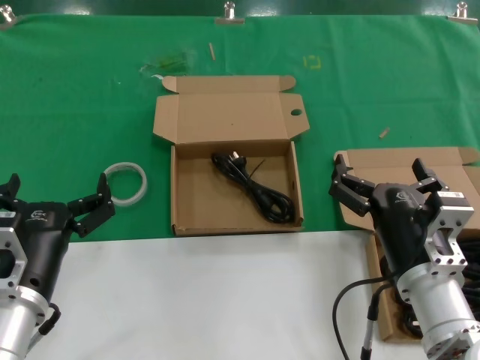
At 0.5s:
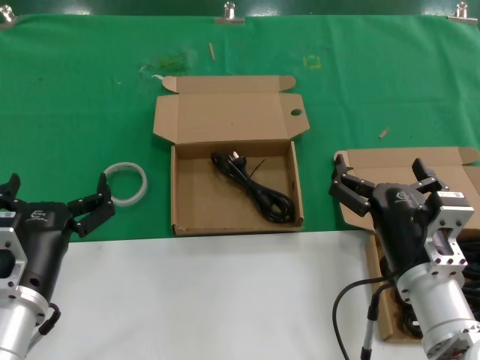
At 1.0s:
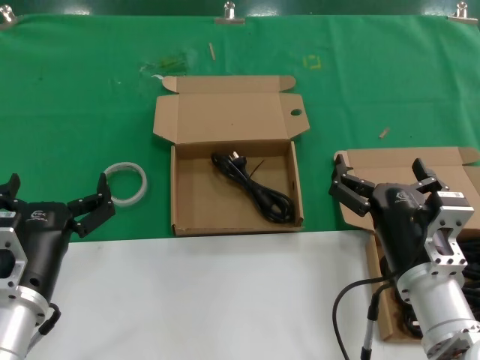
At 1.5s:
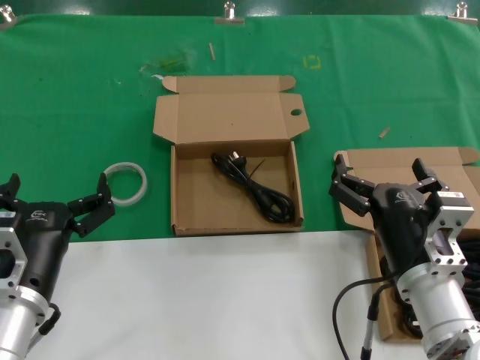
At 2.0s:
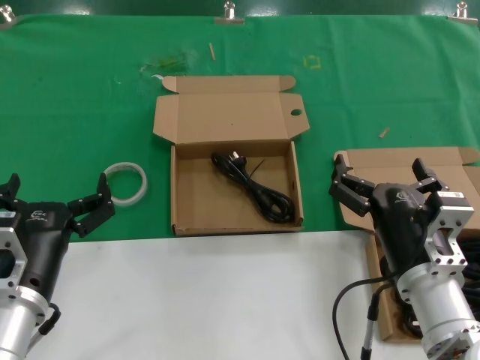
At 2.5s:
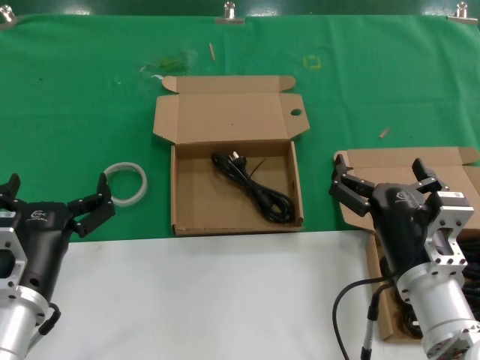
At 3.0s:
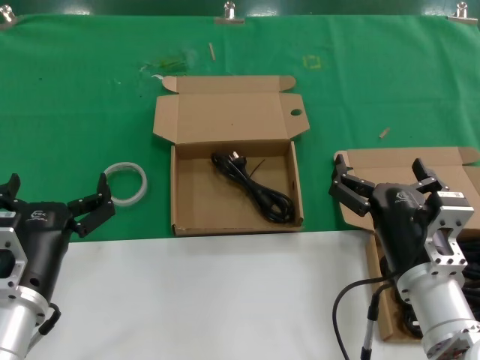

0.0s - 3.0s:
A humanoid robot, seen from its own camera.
Task of the whole recording: take the parts from the box containing them and put them into an empty box.
0.0s - 3.0s: The two hands keep their place.

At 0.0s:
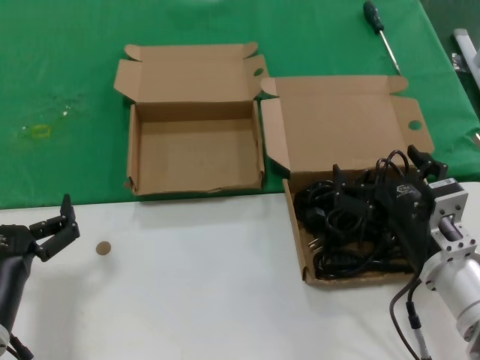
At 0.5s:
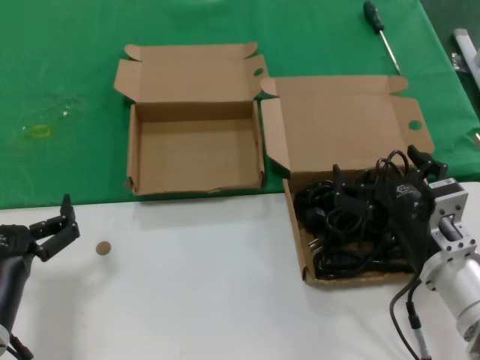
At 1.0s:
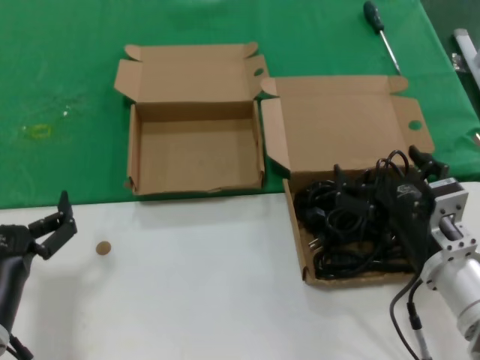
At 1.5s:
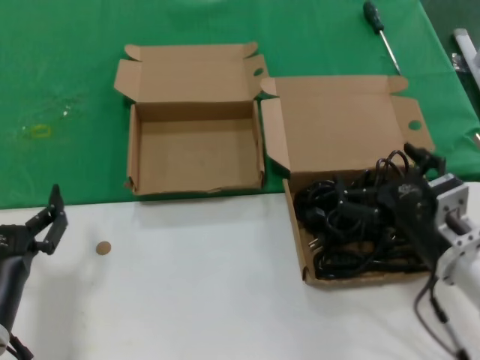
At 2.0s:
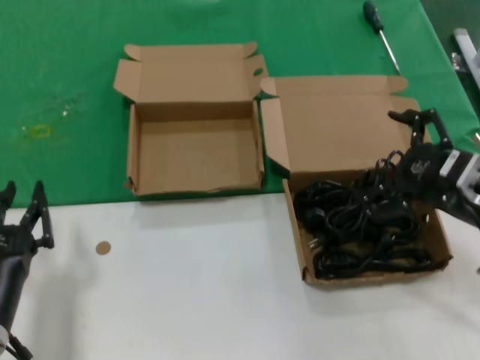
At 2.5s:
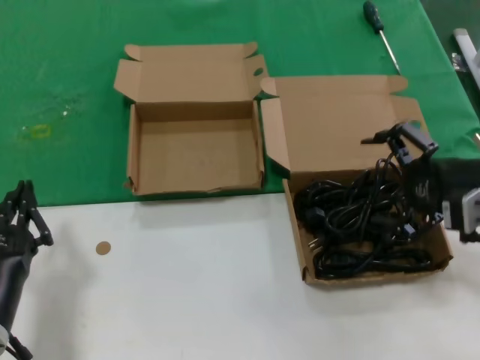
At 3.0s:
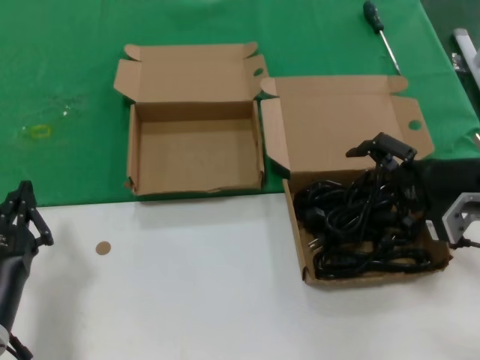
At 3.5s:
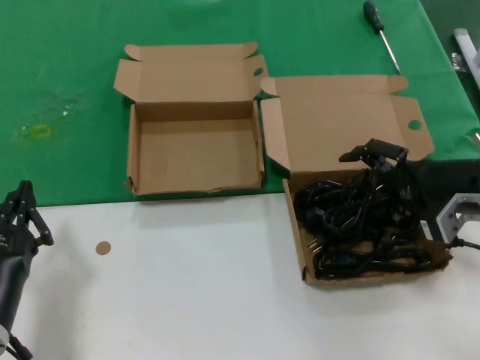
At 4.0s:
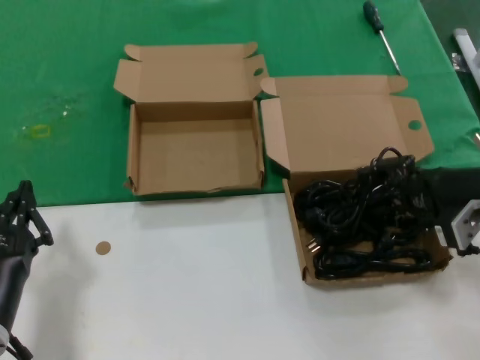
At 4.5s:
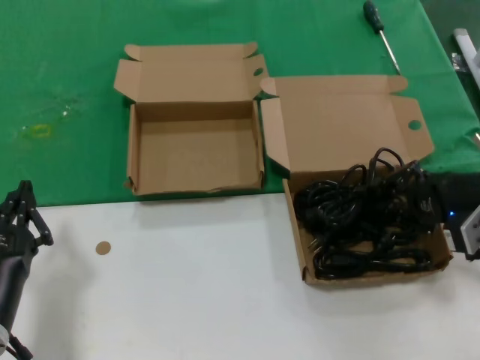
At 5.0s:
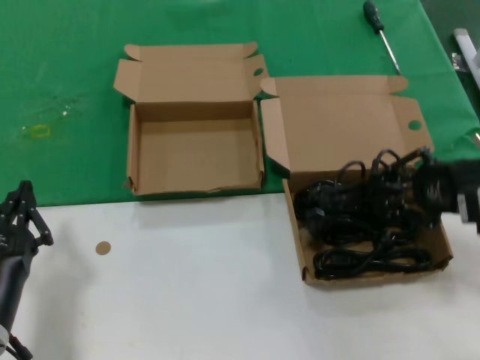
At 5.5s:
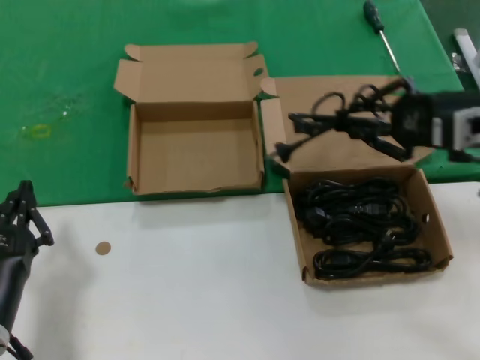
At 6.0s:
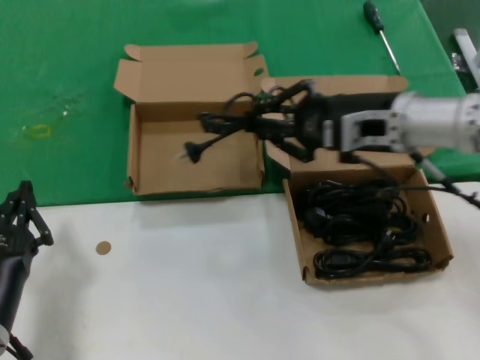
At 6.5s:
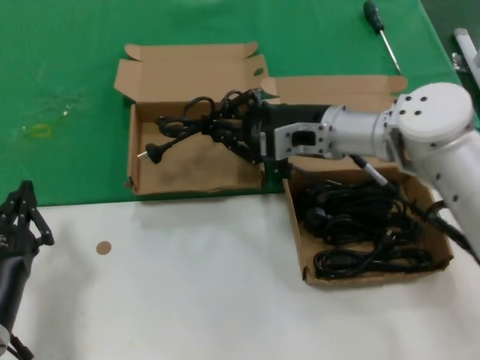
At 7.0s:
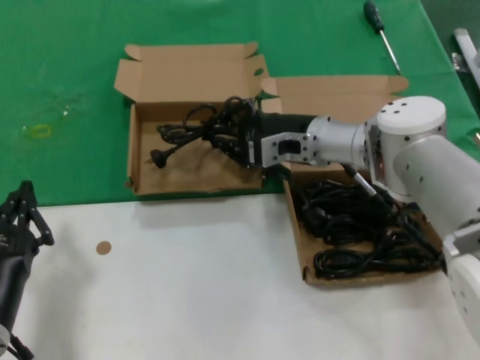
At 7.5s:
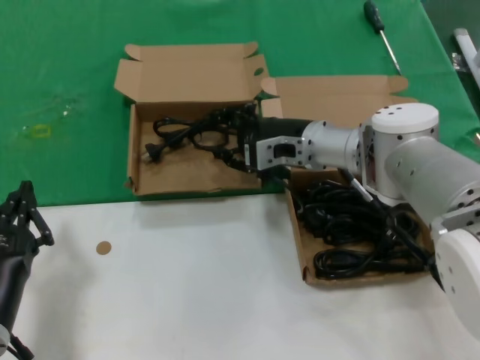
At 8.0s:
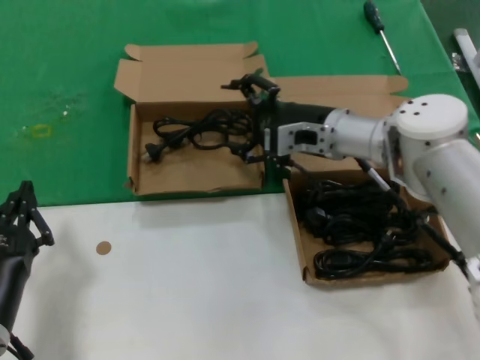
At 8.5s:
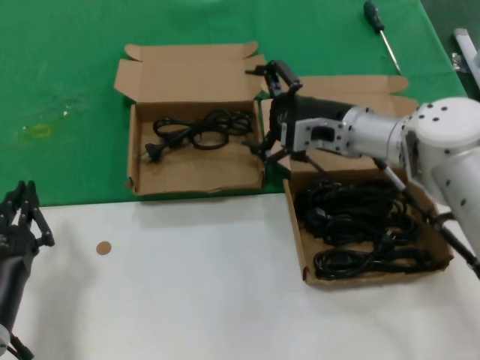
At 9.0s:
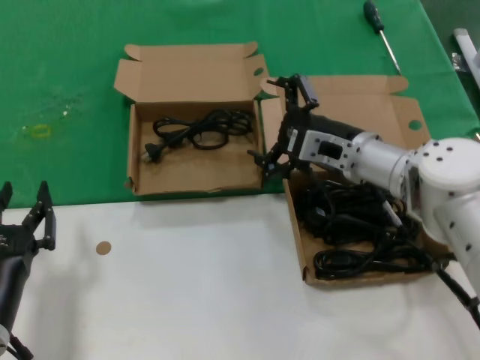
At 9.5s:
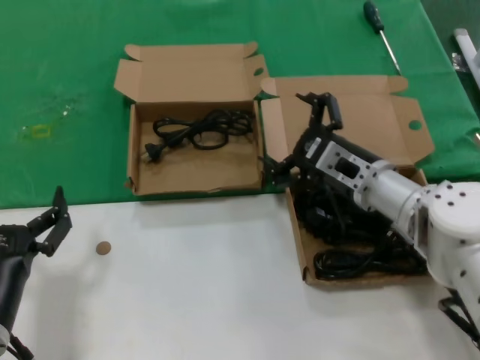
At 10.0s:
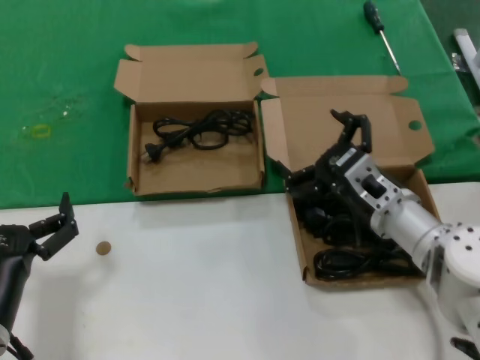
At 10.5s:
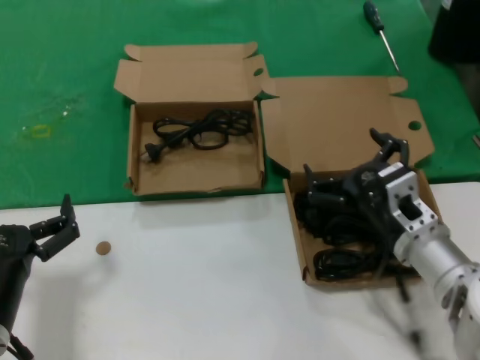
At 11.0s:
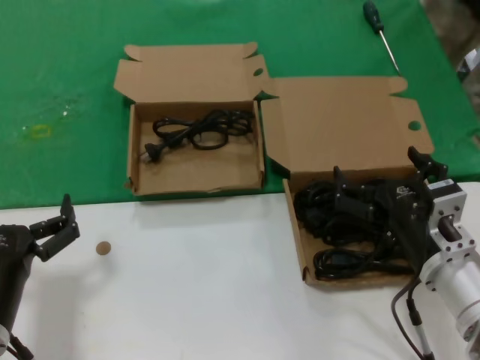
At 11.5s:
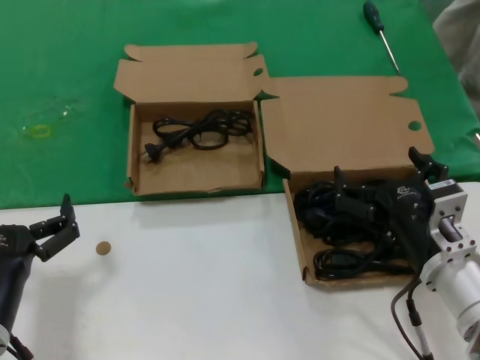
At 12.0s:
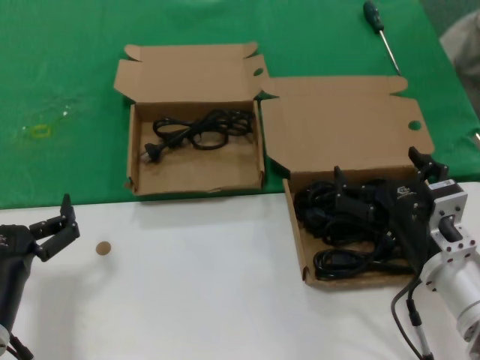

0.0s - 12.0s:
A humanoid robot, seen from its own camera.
Task of the whole recording: take the parts from the box containing them and put them into an empty box.
Step, 0.0s - 4.5s: Grasp the data cable.
Step, 5.0s - 7.5s: Place the data cable in the another box.
0.0s - 2.0s: The right hand shifts some 10 cm to the right and upward.
2.0s - 4.0s: The right hand shifts about 5 cm forward.
4.0s - 6.0s: The right hand is displaced to the left, upward and forward by about 15 cm.
6.0s - 8.0s: The right hand travels forward, downward and to the left by some 10 cm.
8.0s - 10.0s: The right hand goes some 15 cm backward and downward.
10.0s - 12.0s: The right hand moves backward, some 10 cm.

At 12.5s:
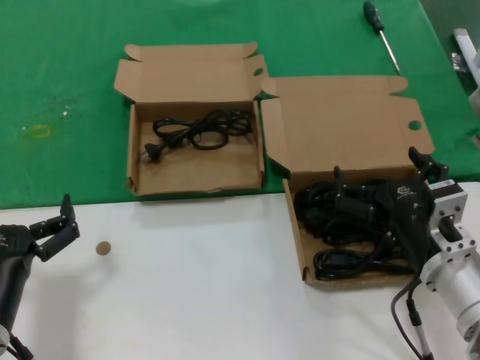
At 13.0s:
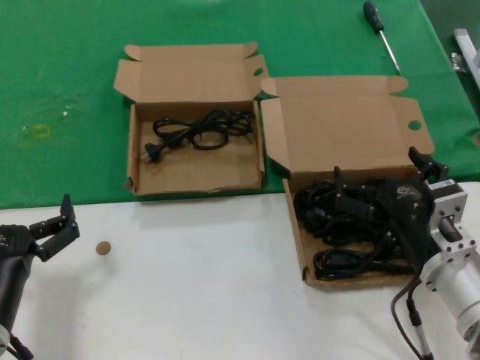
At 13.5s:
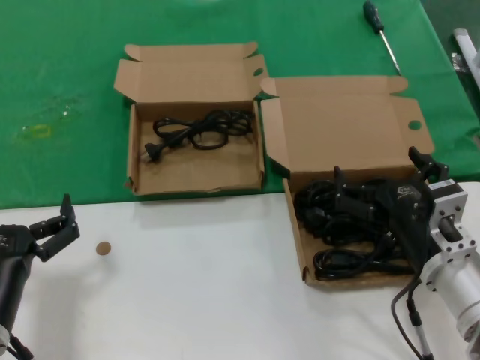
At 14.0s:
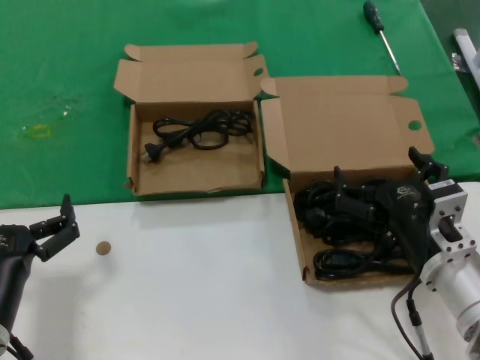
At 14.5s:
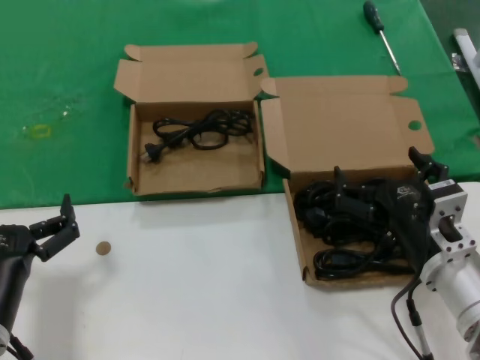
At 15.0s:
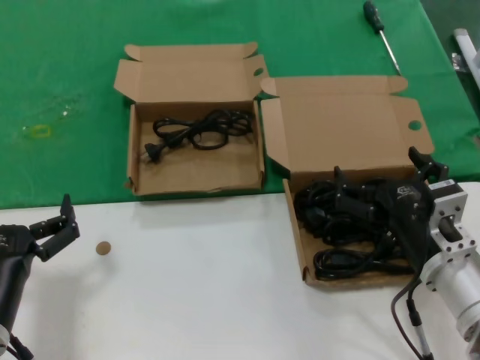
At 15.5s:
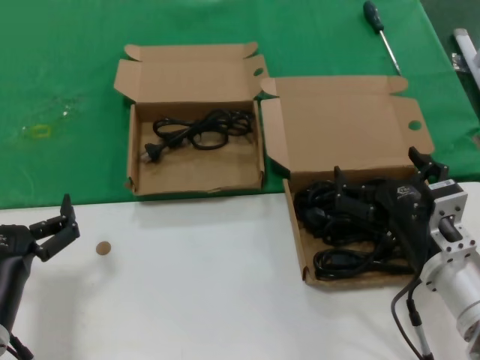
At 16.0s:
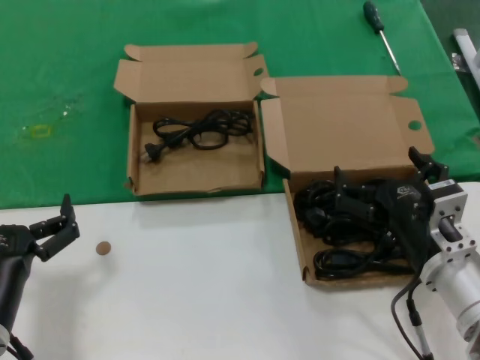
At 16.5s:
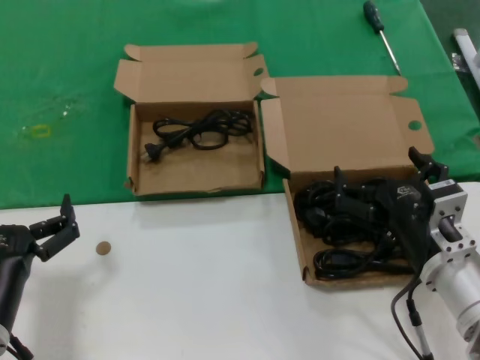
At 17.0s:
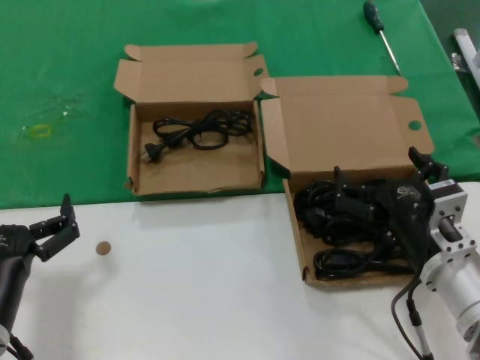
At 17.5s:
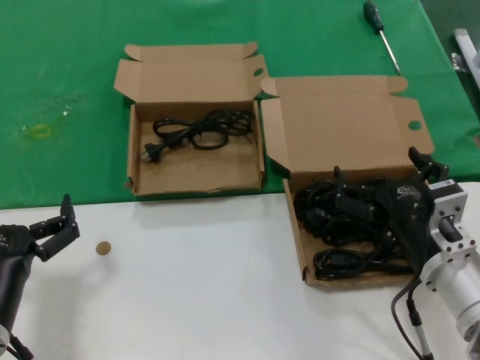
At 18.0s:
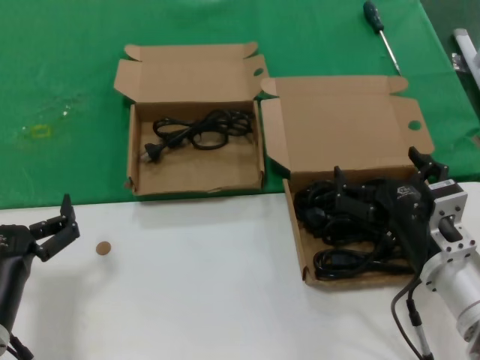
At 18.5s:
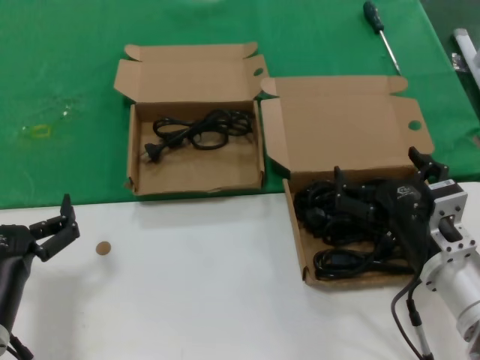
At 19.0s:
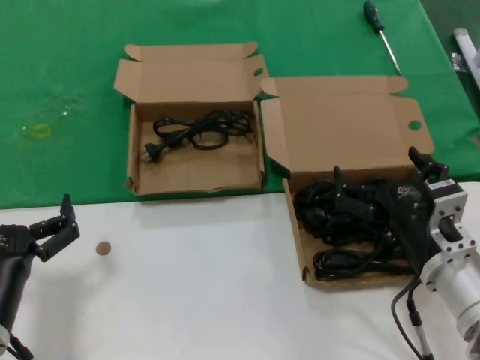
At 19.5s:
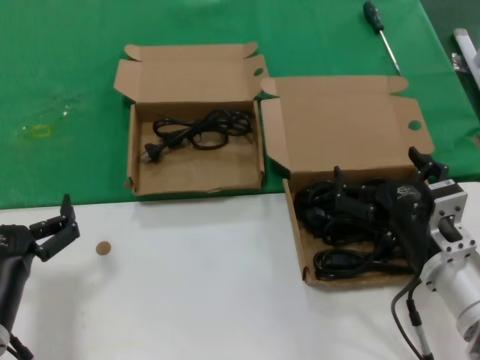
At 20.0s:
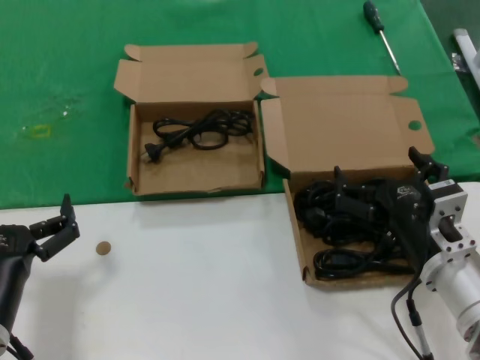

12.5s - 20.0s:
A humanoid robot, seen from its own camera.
Task of the whole recording: take the parts from the box containing them and put them into an empty box.
12.5s - 20.0s: Both hands stay put.

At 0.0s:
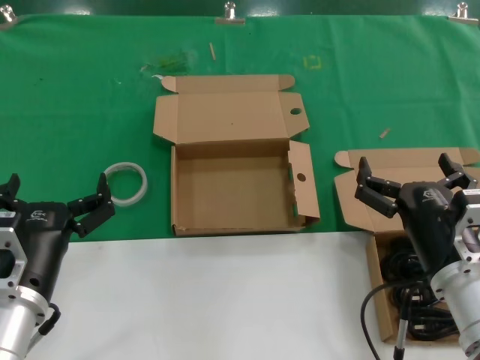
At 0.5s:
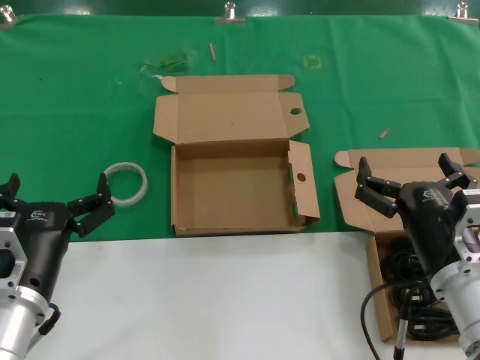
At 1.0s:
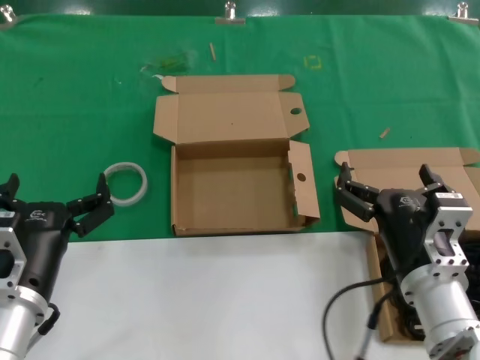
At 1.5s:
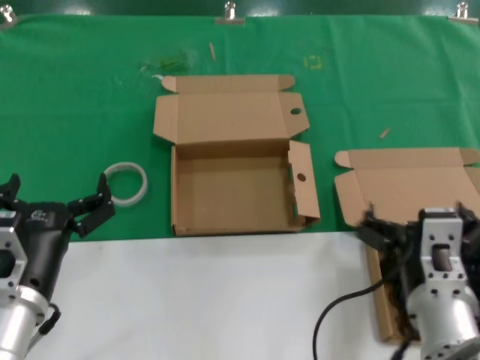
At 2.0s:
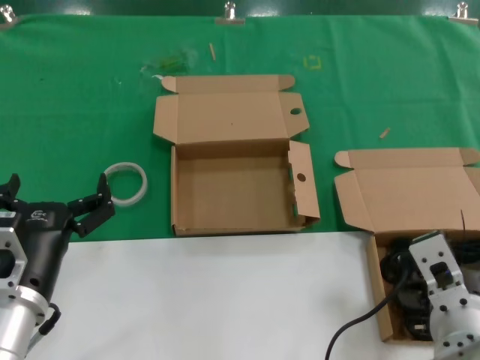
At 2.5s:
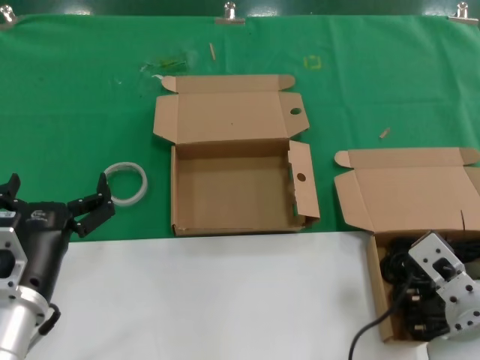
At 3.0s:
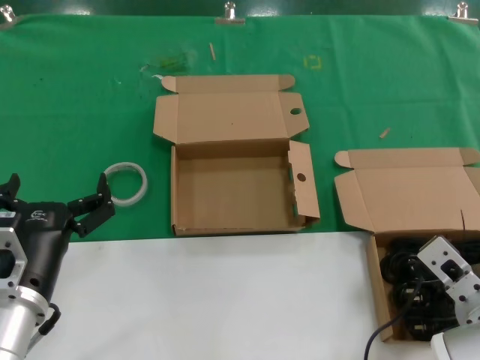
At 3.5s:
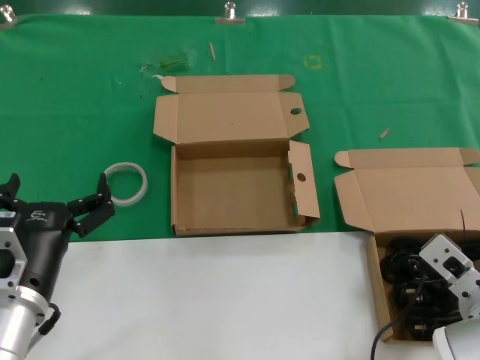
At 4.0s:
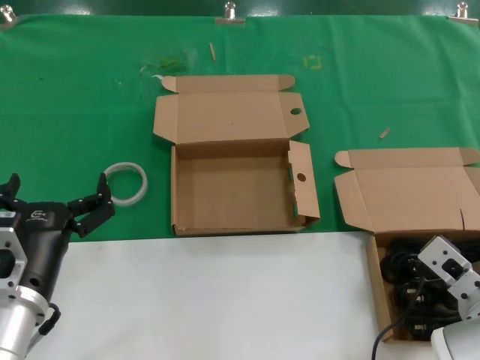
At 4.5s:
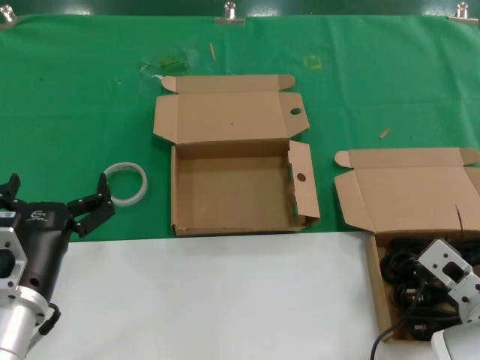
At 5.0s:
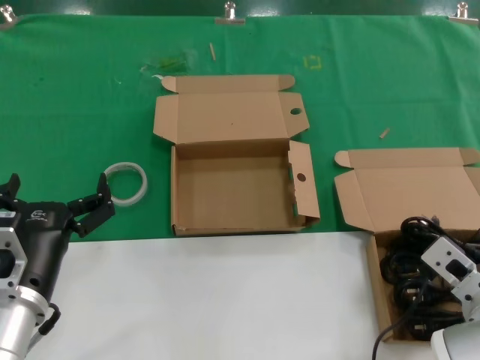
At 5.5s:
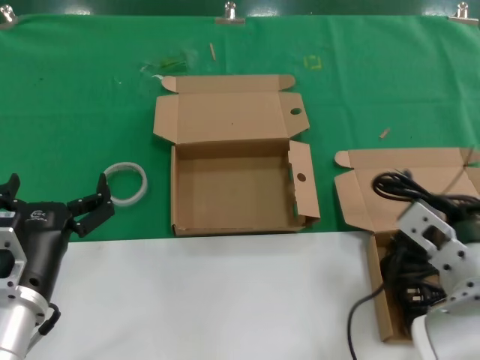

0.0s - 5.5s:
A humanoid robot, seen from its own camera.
Task of the whole recording: take the parts from the box containing them and put them into an empty box.
Step, 0.0s - 4.5s: Grasp the data cable.
0.0s - 2.0s: The right hand shifts some 5 cm to the left.
2.0s - 3.5s: The right hand heads to the right and forward, covering about 10 cm.
3.5s - 5.5s: The right hand travels upward by some 5 cm.
